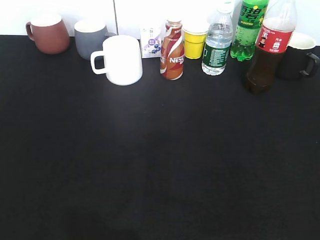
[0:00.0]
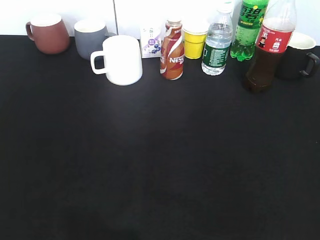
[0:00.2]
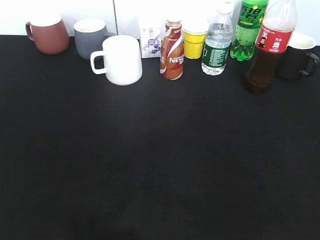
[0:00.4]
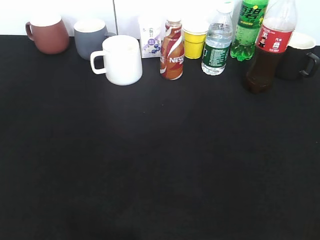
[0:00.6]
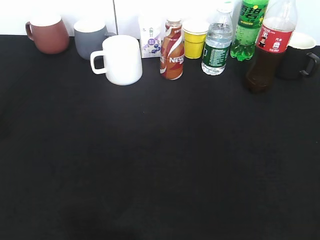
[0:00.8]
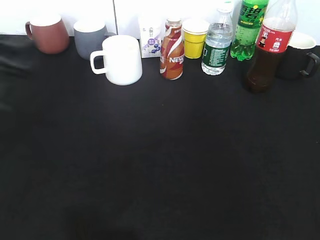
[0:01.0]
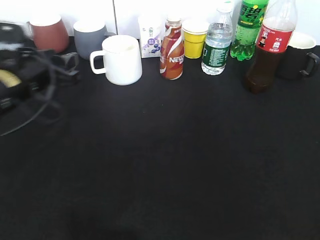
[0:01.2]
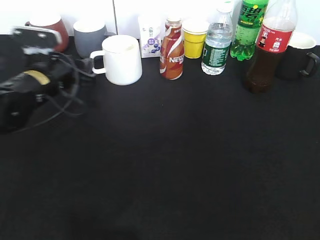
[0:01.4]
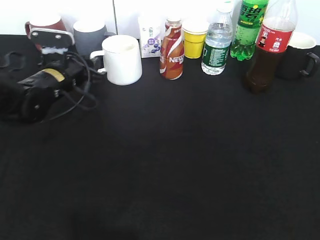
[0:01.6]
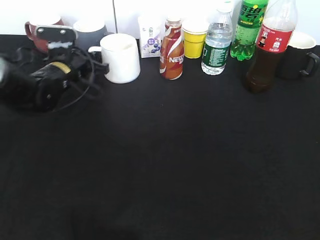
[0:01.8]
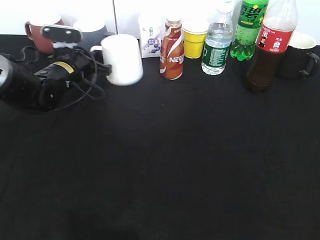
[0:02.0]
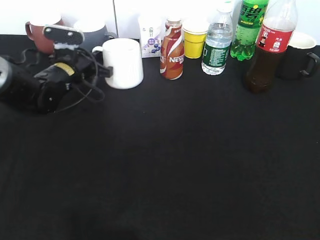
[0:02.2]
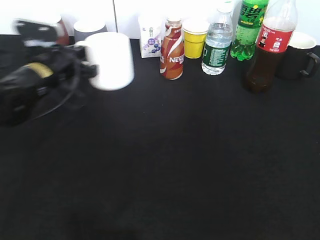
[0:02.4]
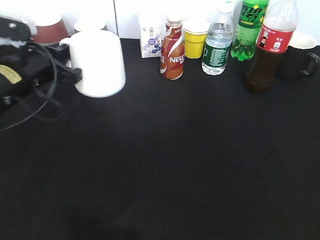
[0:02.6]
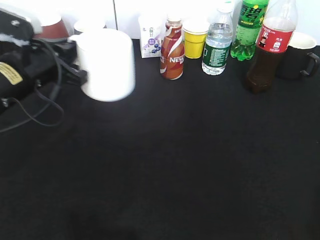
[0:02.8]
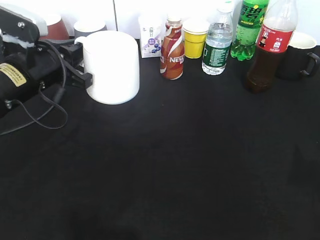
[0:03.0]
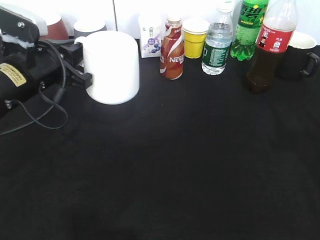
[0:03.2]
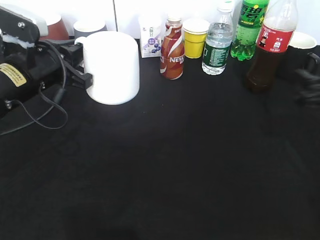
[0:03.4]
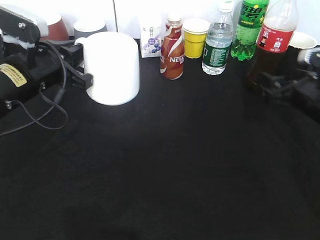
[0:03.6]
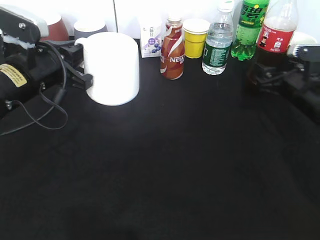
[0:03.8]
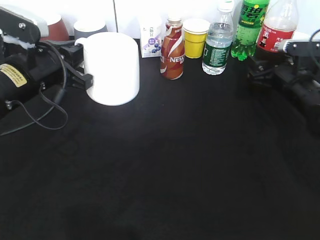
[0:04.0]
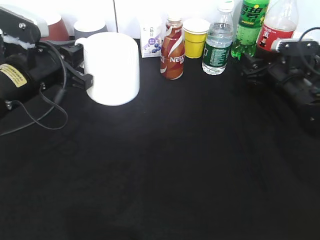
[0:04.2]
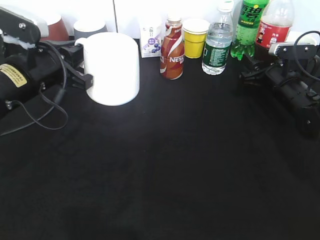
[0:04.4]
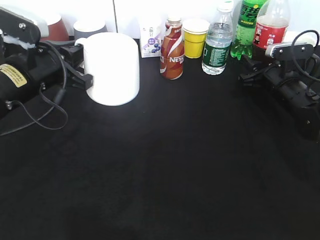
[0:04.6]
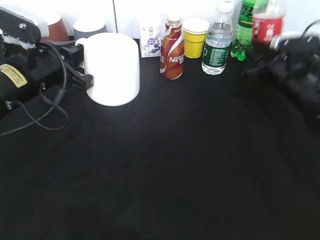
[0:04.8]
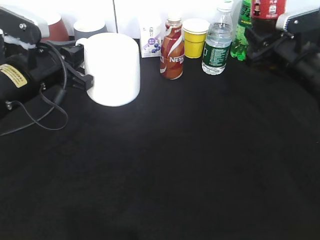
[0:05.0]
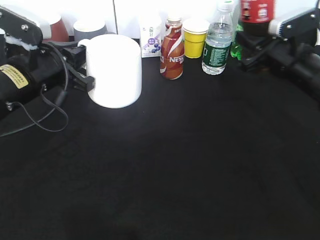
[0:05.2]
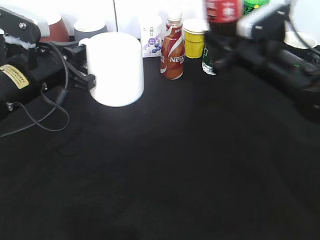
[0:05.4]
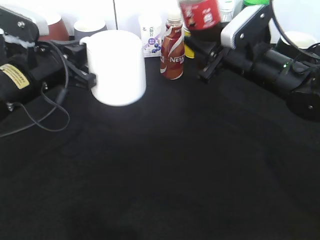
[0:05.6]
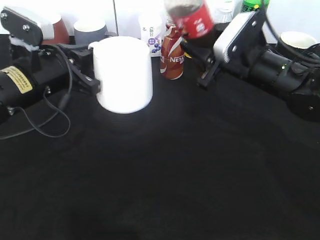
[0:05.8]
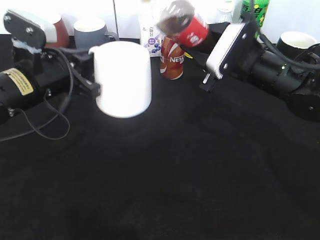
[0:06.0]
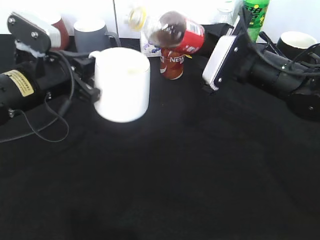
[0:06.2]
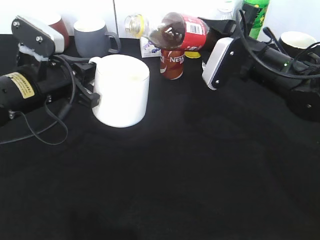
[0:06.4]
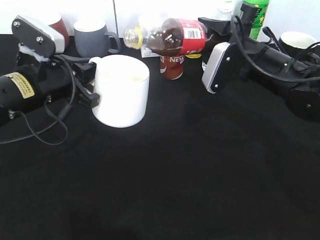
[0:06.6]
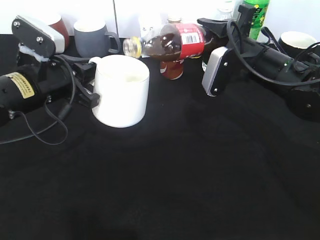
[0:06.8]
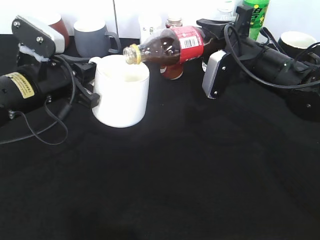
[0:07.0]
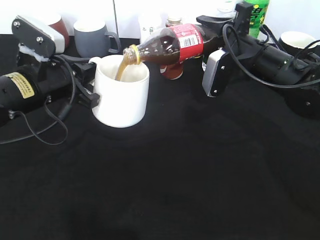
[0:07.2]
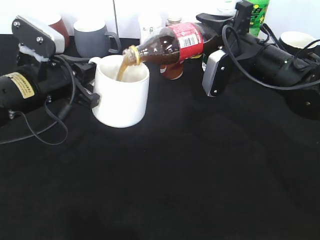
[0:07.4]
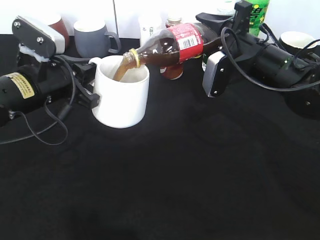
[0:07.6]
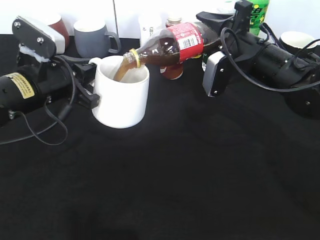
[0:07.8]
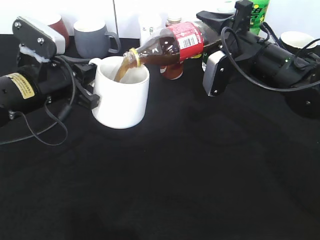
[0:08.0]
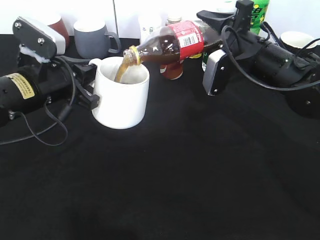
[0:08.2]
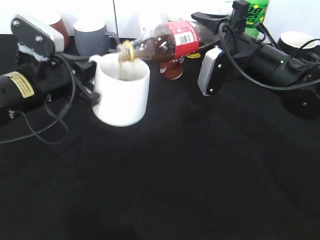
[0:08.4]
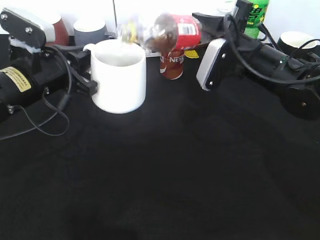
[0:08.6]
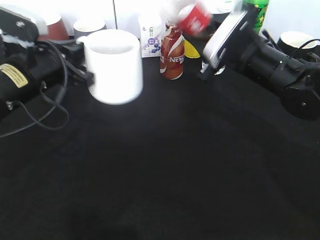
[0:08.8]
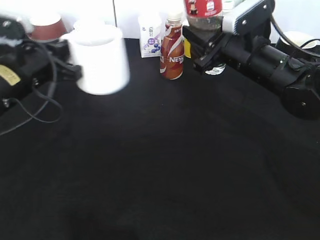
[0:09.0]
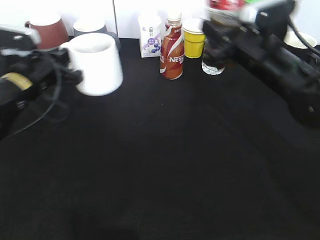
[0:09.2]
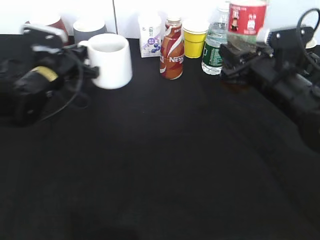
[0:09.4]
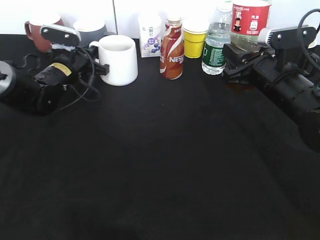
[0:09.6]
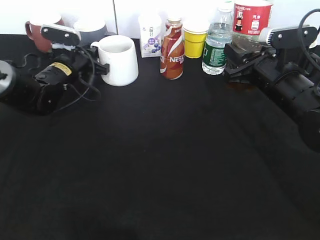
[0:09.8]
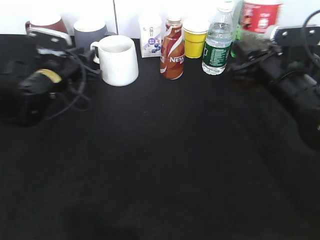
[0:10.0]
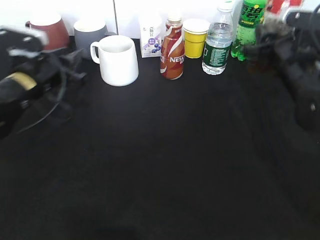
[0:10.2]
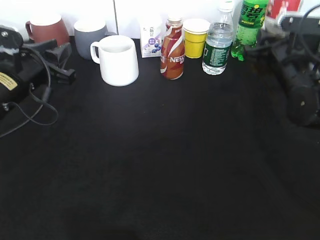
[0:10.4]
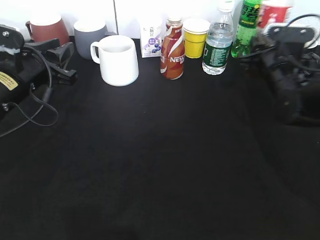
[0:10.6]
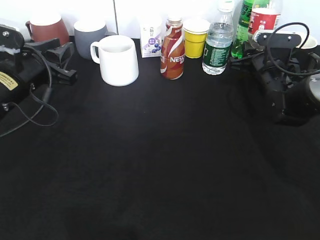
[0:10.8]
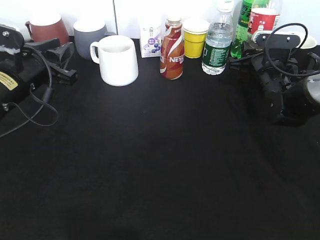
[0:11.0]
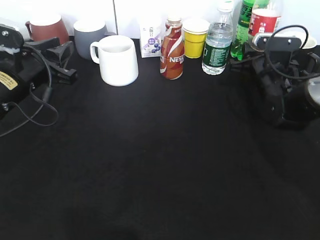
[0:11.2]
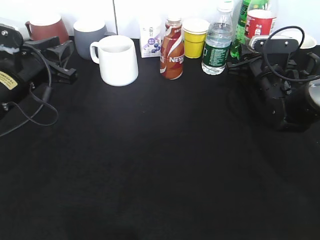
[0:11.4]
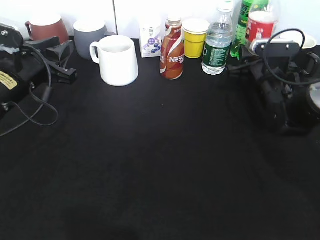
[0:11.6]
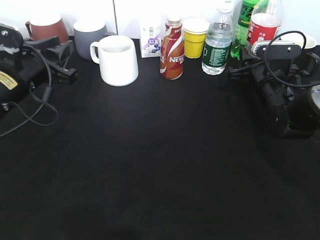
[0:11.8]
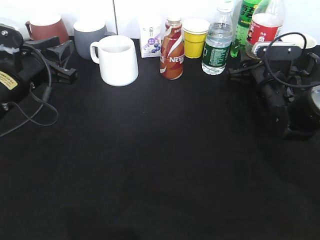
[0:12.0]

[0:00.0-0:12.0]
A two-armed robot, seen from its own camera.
Step, 0:00.0 to 0:02.0: Grasp the white cup with left gripper.
Step, 0:02.2 to 0:03.0: Lift the white cup with left gripper.
Step, 0:03.2 to 0:04.2: Grasp the bottle with cola with right gripper.
Step, 0:04.6 to 0:08.4: Pour the cola from bottle to cup with right gripper.
Step, 0:08.8 to 0:09.8: Place the white cup on the table with left gripper.
0:00.0 to 0:01.6: The left gripper travels forward by some 40 cm, and closes its fingers.
0:01.6 to 0:03.0: The right gripper shifts approximately 10 cm forward. Meanwhile the left gripper moves backward and upward, roughly 10 cm, and closes up.
0:03.0 to 0:04.4: The right gripper shifts roughly 35 cm forward and downward, and closes.
0:04.4 to 0:06.0: The right gripper travels to the left, upward and backward by approximately 15 cm.
0:09.0 to 0:10.4: The left gripper travels forward and back again, some 15 cm each way, and opens; the right gripper moves to the right, some 10 cm.
0:10.4 to 0:12.0: The right gripper moves downward, about 5 cm, and opens.

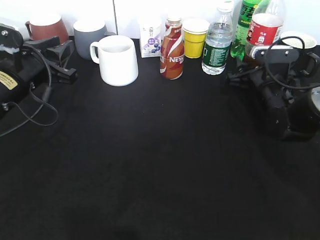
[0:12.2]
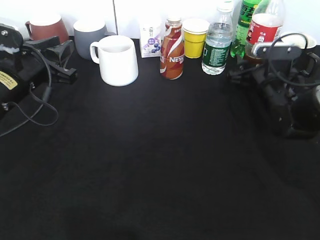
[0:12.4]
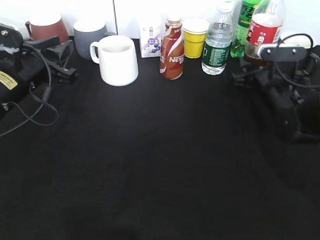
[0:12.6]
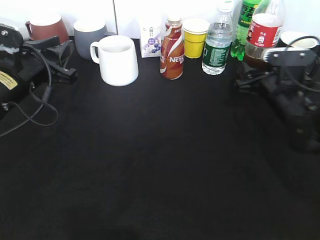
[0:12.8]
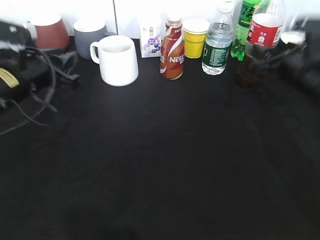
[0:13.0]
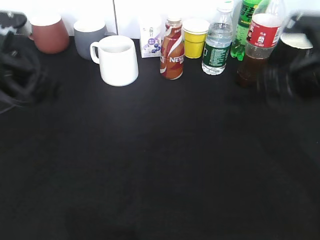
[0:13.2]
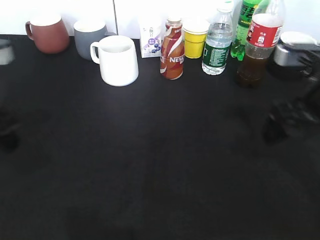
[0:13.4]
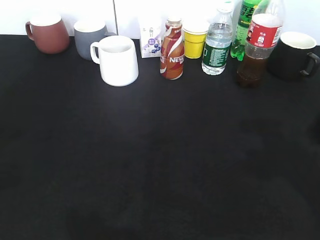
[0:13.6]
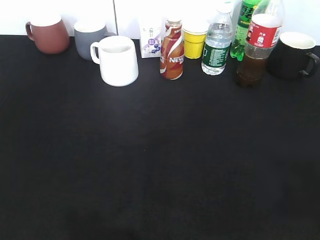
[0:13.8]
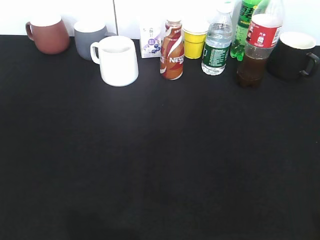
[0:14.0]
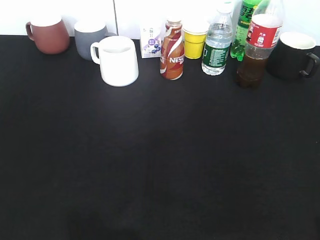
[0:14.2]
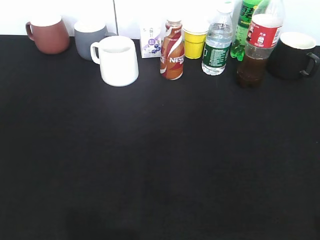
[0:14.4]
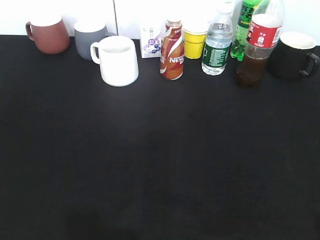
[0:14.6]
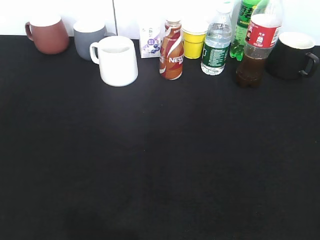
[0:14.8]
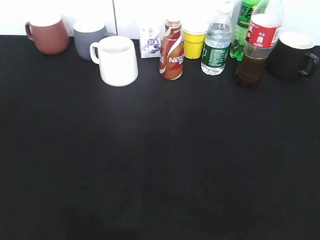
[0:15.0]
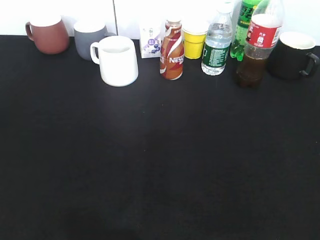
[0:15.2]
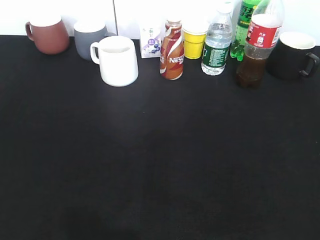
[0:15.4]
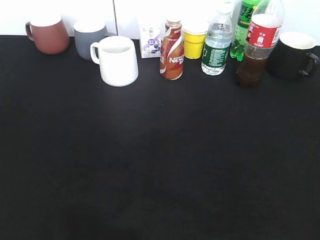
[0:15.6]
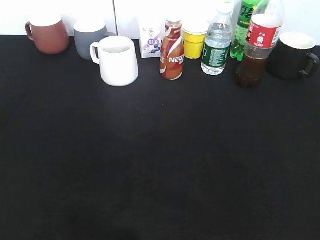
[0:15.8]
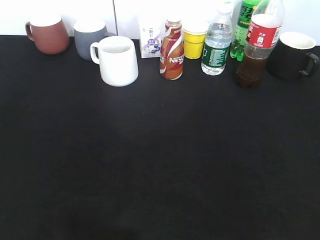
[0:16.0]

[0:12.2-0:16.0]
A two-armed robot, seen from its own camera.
0:12.2 to 0:13.4: The left gripper goes approximately 15 cm backward and upward; the right gripper travels backward and upward by approximately 20 cm.
0:13.4 to 0:14.8: Both grippers travel together backward, approximately 20 cm.

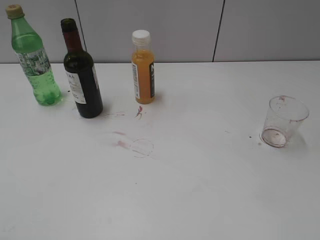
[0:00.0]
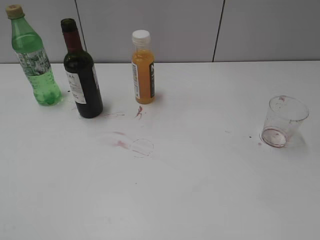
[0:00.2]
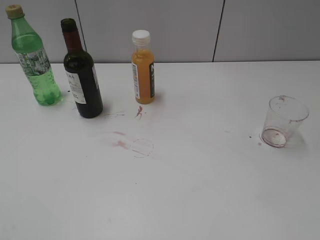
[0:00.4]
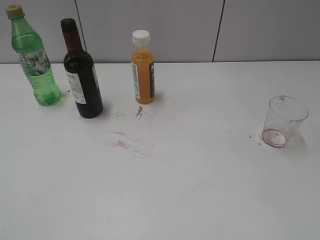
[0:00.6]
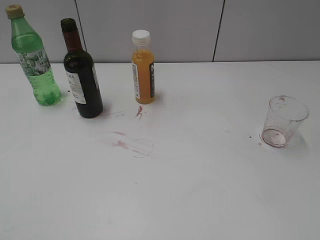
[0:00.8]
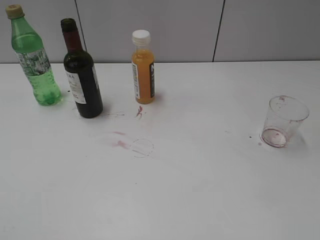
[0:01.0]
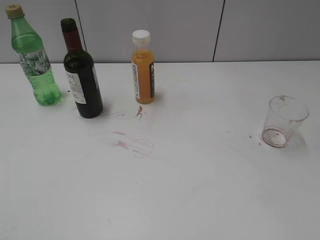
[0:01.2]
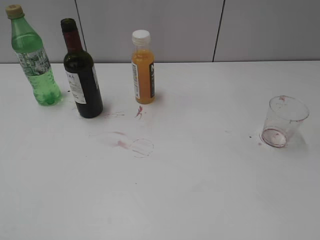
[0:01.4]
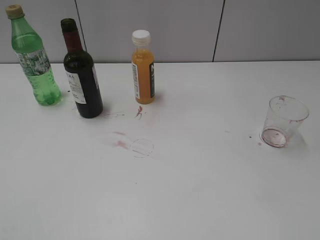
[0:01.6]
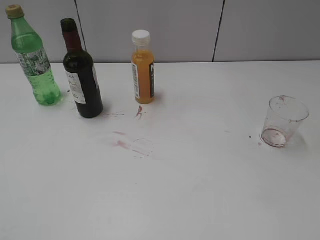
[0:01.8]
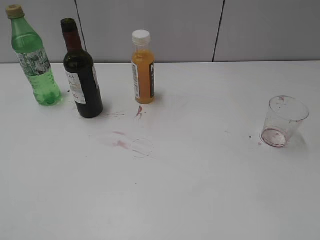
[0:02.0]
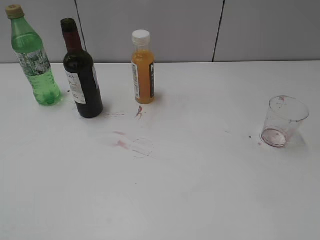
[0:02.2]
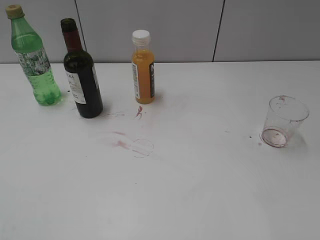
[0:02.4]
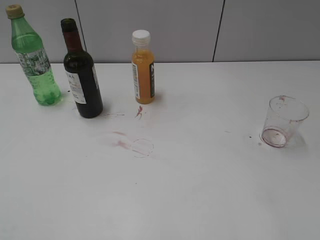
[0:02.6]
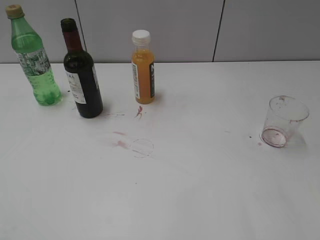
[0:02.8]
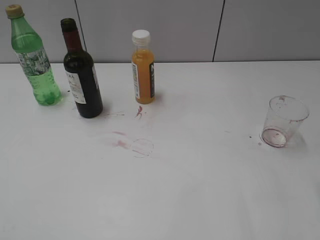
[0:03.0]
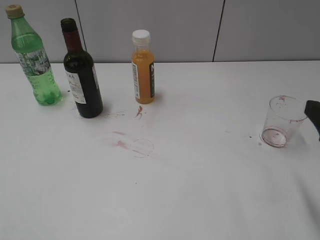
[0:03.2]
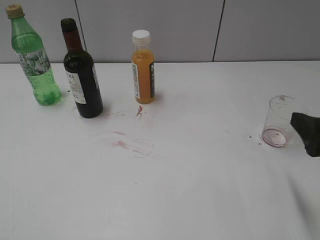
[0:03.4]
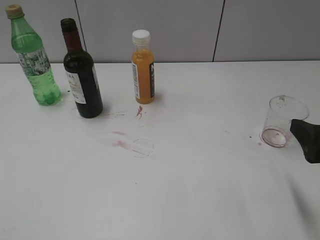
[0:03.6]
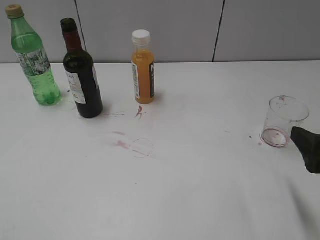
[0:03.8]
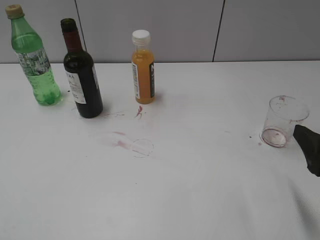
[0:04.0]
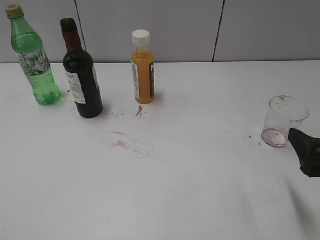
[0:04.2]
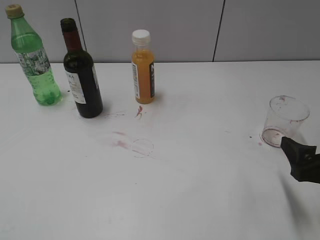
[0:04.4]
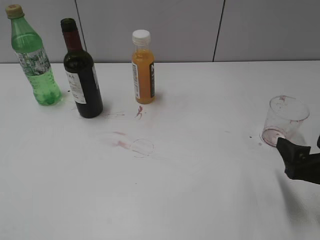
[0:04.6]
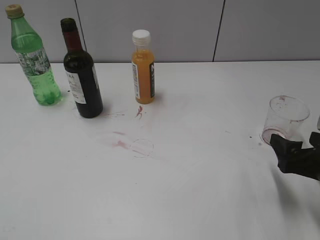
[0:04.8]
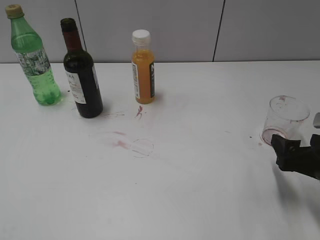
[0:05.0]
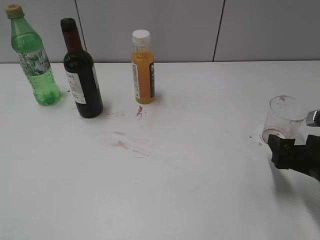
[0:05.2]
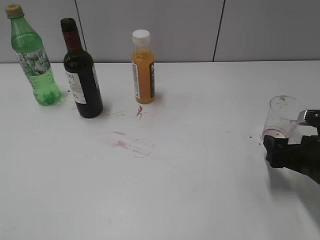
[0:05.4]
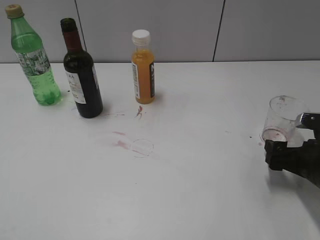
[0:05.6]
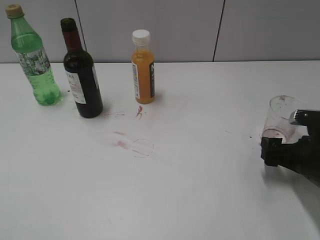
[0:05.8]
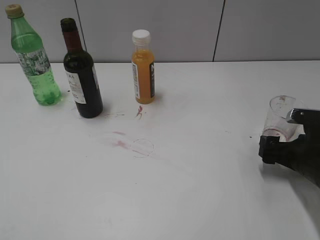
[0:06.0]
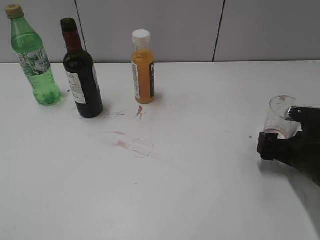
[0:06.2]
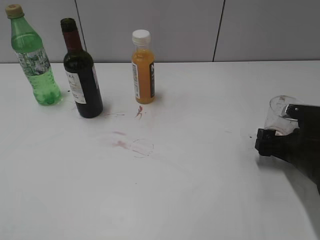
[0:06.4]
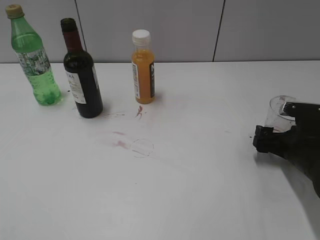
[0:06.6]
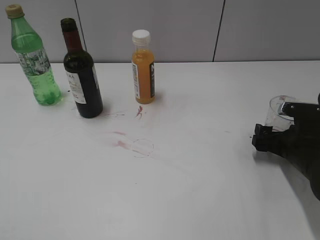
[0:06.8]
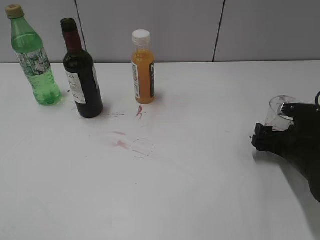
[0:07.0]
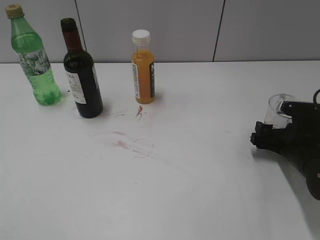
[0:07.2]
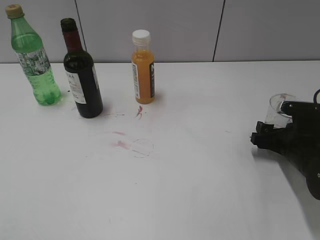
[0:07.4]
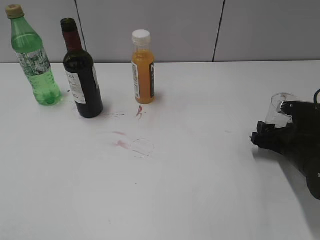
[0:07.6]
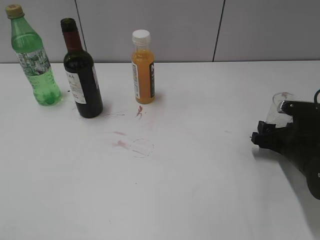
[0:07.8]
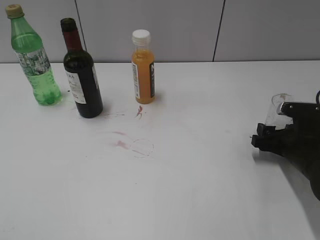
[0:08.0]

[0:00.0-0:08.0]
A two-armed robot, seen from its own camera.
Step, 0:01.6 to 0:07.4: Grasp the transparent cup with right gripper.
0:01.6 to 0:03.2: The right gripper goes about 20 cm forward and downward, and closes up.
0:03.2 to 0:04.8: The right gripper moves downward, about 10 cm, and opens its fingers.
0:04.8 to 0:06.4: The right gripper shifts about 10 cm forward and downward.
0:06.4 to 0:08.0: The right gripper closes its fingers.
